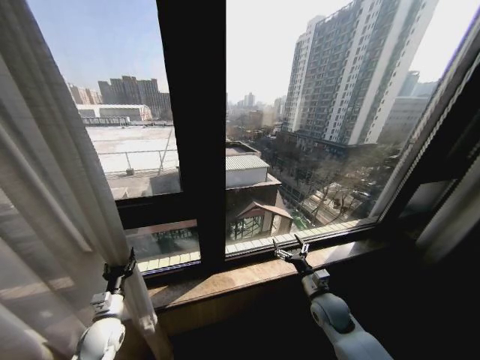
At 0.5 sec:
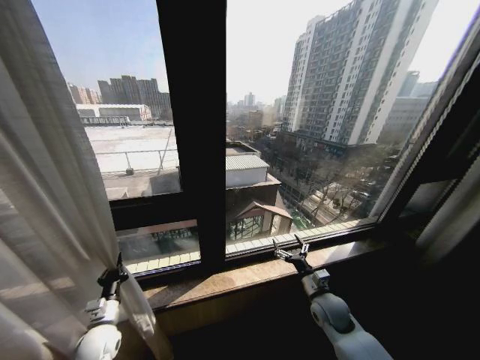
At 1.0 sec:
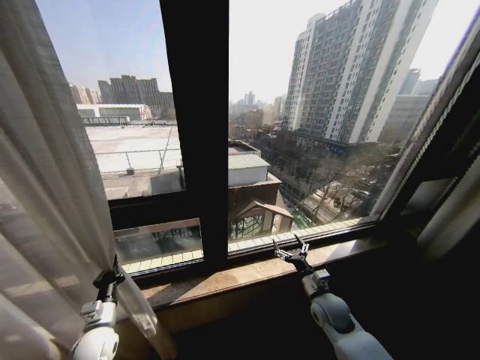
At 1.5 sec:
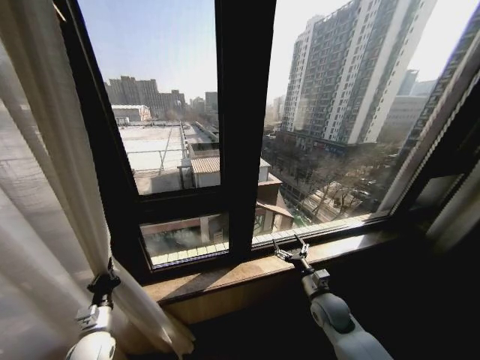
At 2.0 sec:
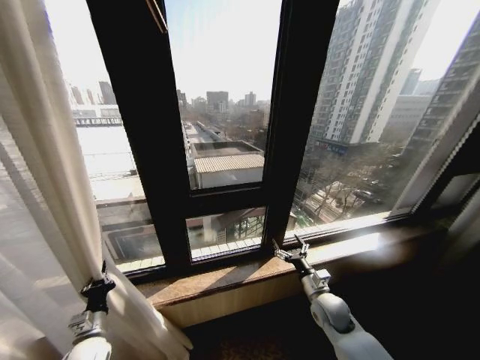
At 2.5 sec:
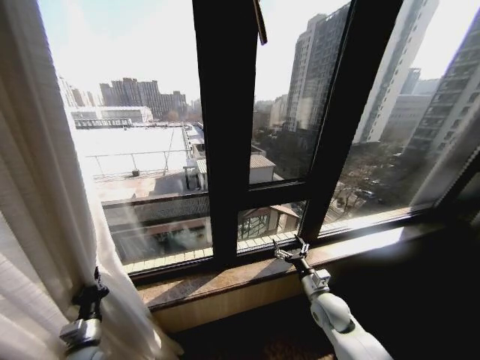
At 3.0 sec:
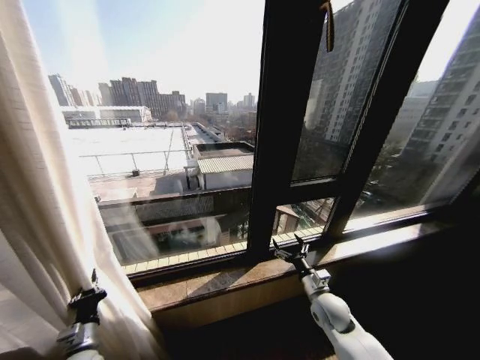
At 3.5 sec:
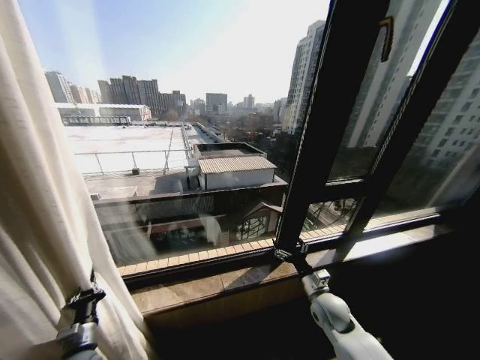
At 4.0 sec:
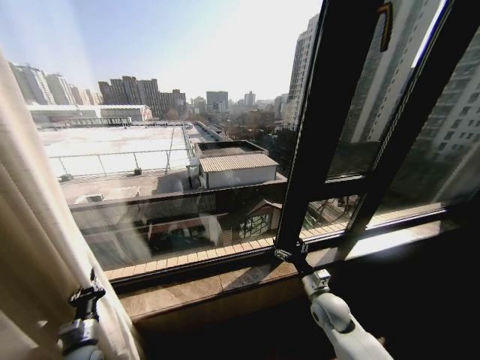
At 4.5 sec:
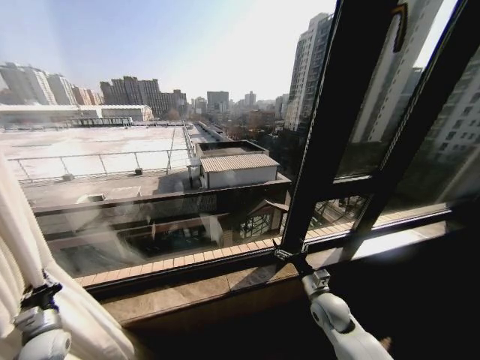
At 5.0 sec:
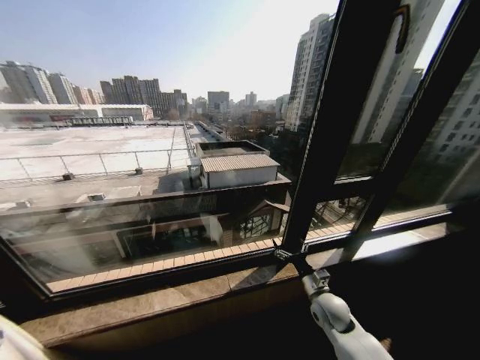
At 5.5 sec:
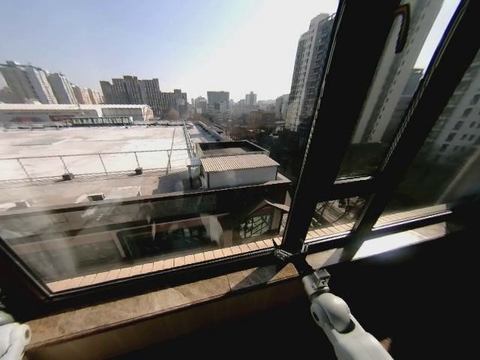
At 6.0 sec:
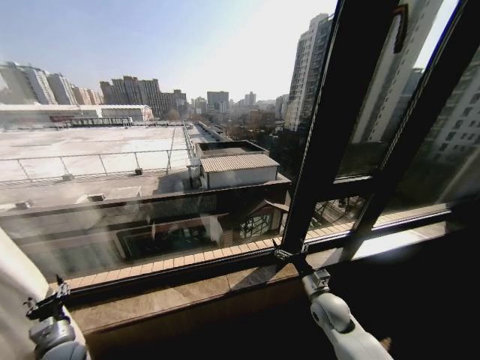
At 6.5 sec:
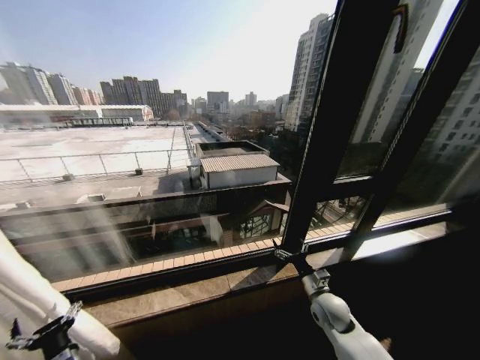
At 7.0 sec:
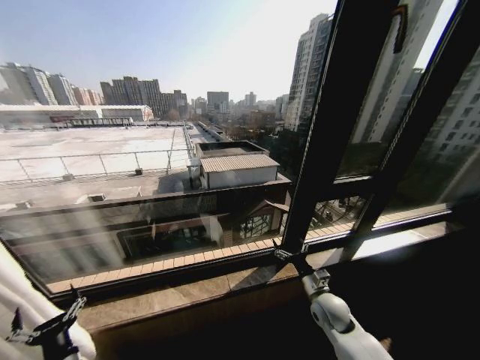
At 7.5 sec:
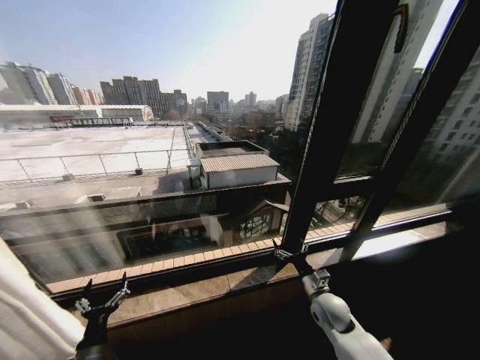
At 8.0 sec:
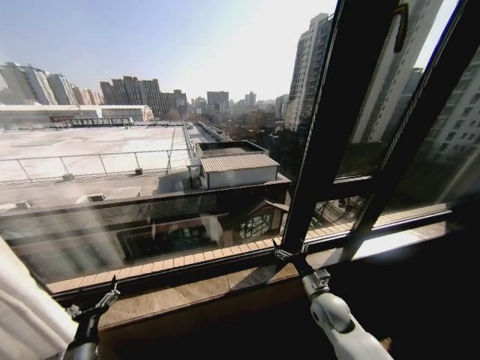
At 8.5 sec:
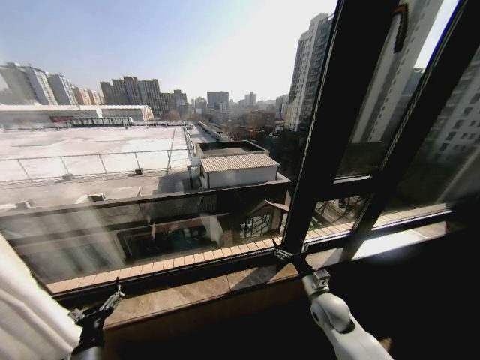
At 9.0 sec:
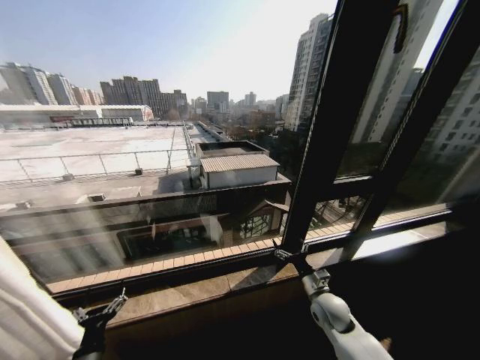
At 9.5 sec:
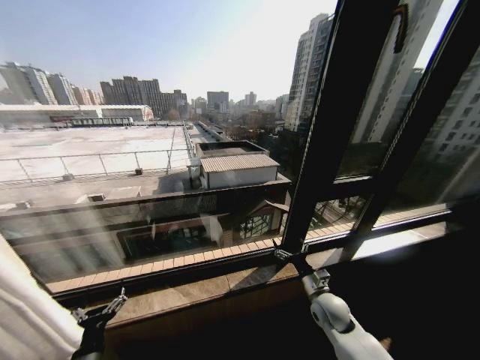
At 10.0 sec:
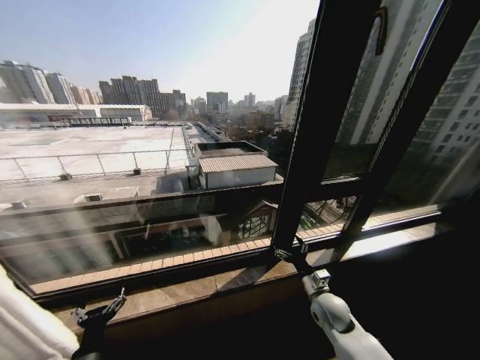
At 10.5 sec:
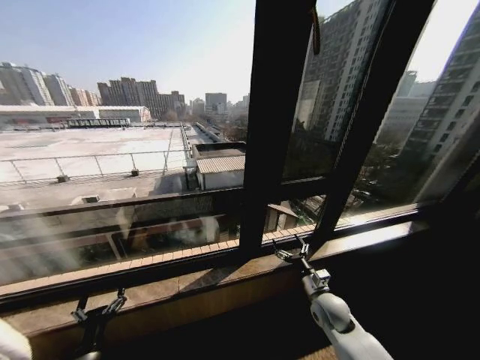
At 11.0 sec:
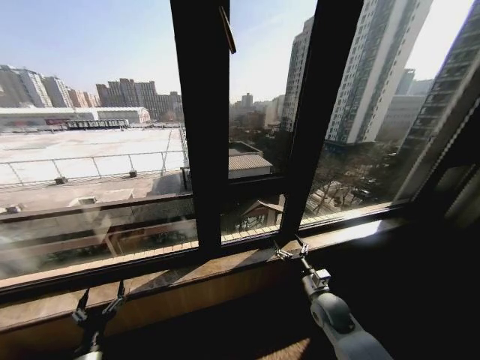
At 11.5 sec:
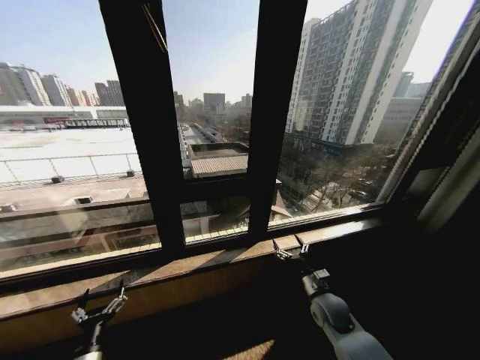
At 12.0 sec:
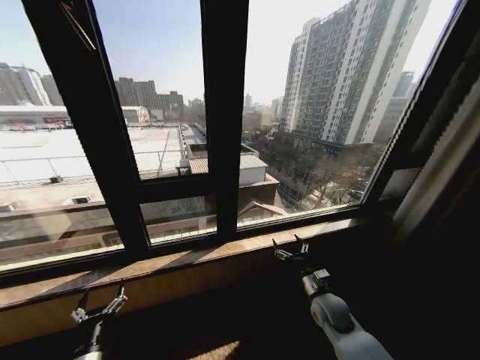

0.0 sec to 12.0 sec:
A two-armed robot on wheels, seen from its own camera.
Task of the whole recording: Open the curtains by pulling them apart, changing their state from closed to fully open.
0.0 sec to 2.0 sec: The left gripper closes.
4.0 sec to 6.0 sec: The left gripper reaches some 30 cm to the left, then returns, and opens up.
6.0 sec to 8.0 sec: The left gripper is displaced to the right and backward by about 10 cm, and opens.
